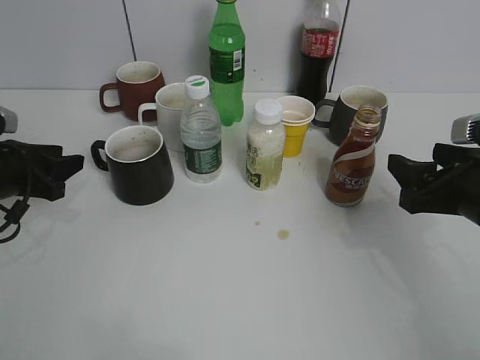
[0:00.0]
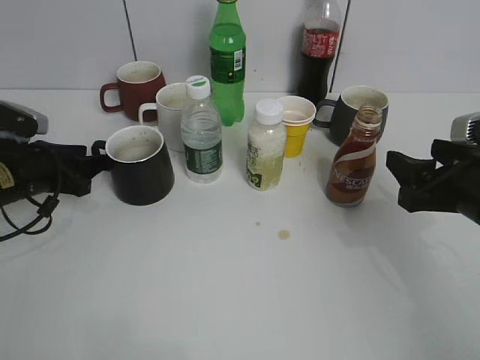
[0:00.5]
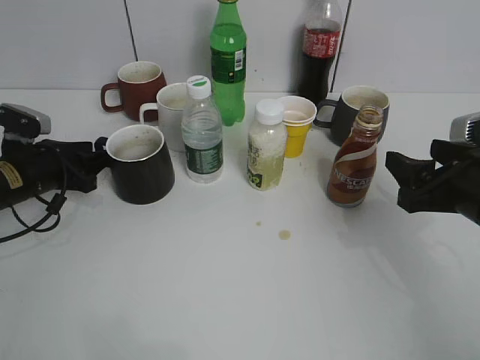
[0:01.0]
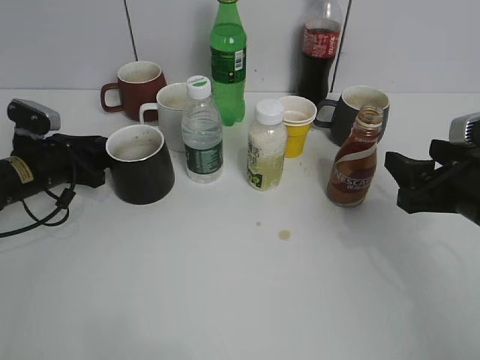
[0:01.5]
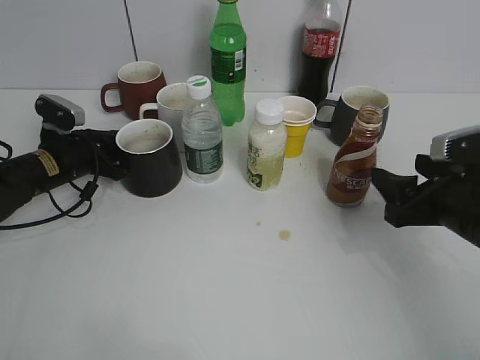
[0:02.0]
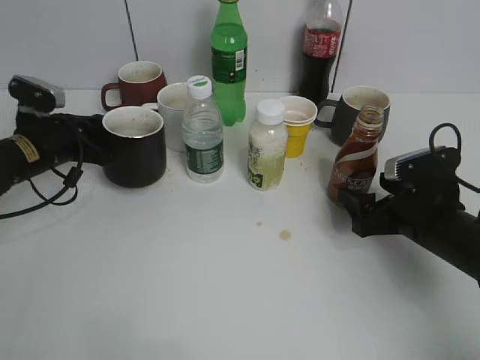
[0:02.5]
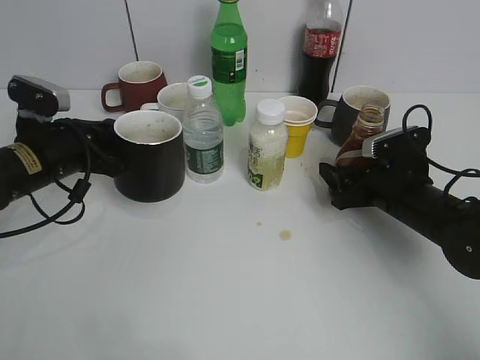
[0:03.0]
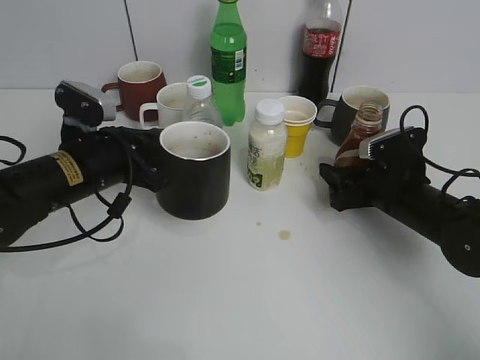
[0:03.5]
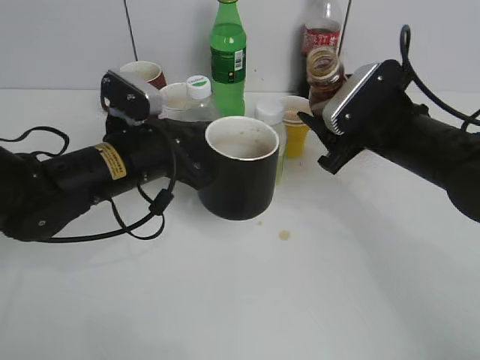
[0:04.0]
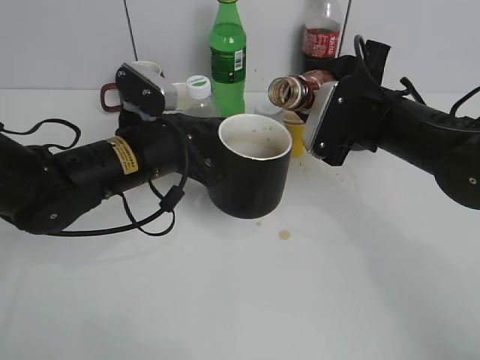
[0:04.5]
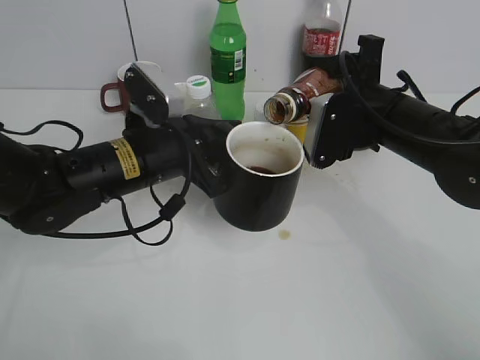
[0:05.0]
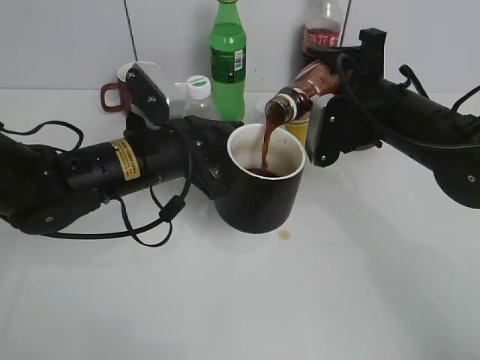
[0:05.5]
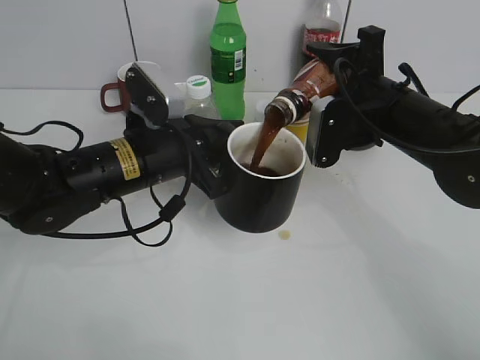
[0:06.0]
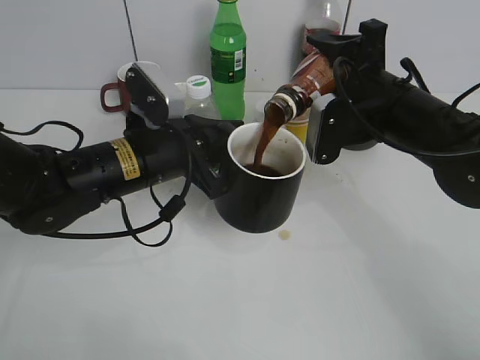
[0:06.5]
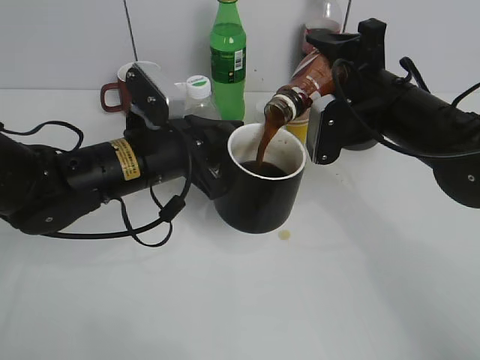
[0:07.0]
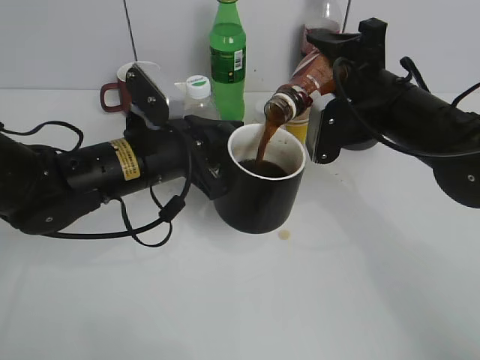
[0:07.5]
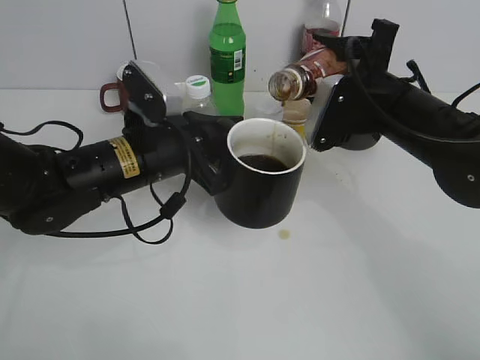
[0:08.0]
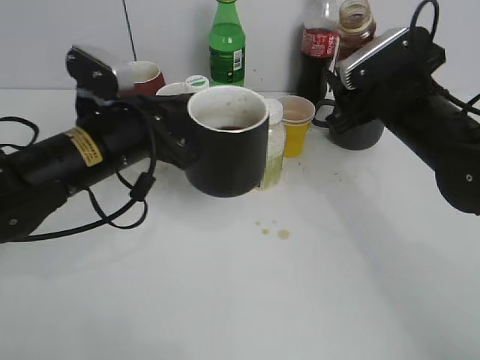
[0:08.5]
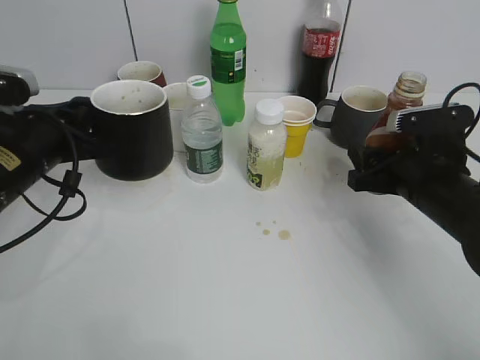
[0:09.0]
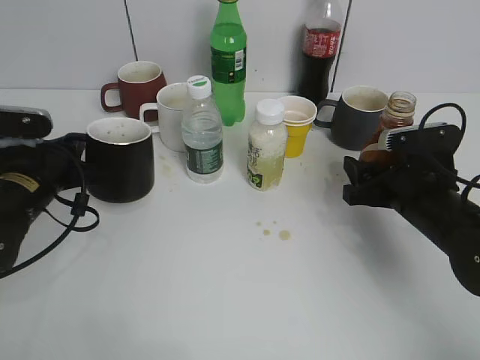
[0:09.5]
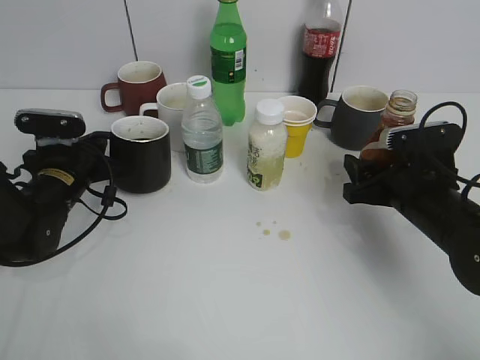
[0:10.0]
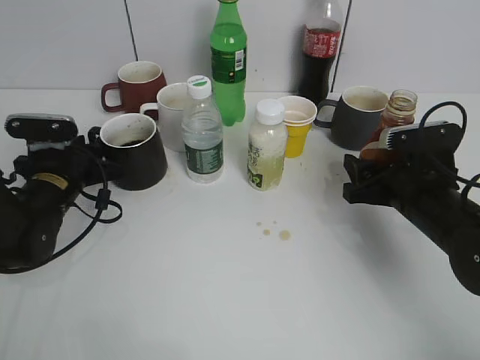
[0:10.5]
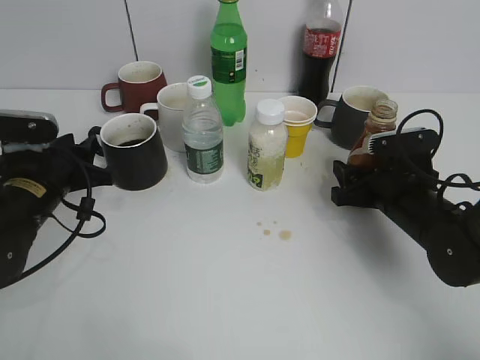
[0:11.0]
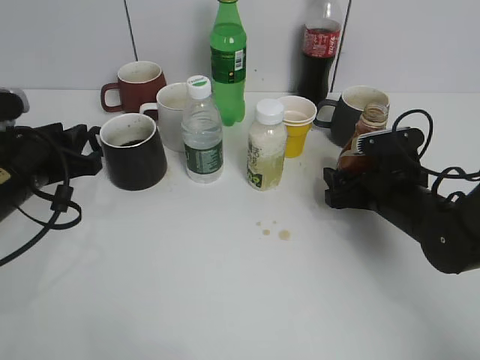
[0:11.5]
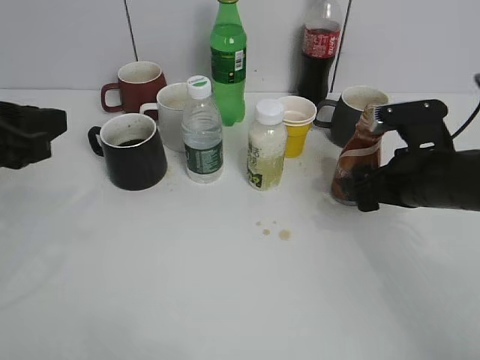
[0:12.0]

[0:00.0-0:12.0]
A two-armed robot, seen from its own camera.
Step, 0:02.5 to 0:03.0: Lift the black cup with left gripper.
Step, 0:03.5 to 0:08.0: Pour the coffee from bottle to cup with right gripper.
Step, 0:08.5 to 0:11.5: Place the coffee bottle on the table with right gripper.
0:00.0 to 0:02.0: The left gripper goes about 10 cm forward, and closes up.
0:02.0 to 0:04.0: The right gripper shifts some 10 cm forward and to the left, moves roughly 5 cm downward and comes back, and closes up, while the left gripper heads to the right, backward and upward, covering some 20 cm.
0:06.0 to 0:08.0: The grippers stay close to where they were, moving slightly.
0:08.0 to 0:10.0: The right gripper moves downward and to the right, about 10 cm, while the left gripper is displaced to the left and downward by roughly 15 cm.
0:10.0 to 0:12.0: The left gripper goes approximately 25 cm upward and backward, and opens its fingers; the right gripper opens its fingers.

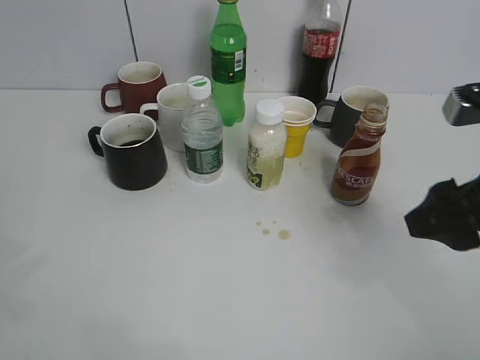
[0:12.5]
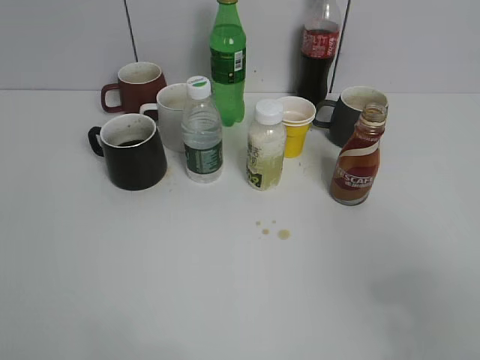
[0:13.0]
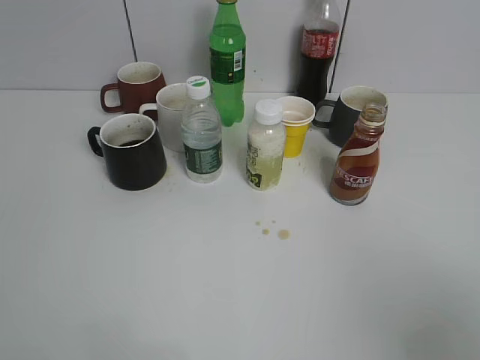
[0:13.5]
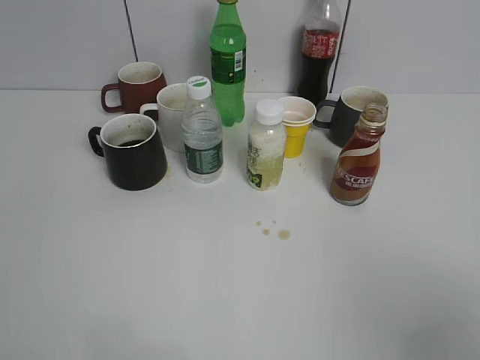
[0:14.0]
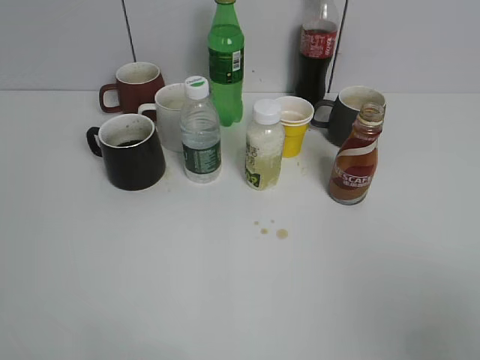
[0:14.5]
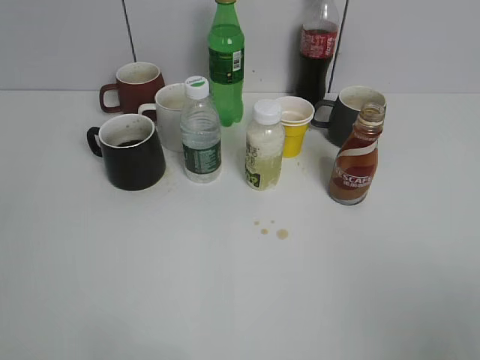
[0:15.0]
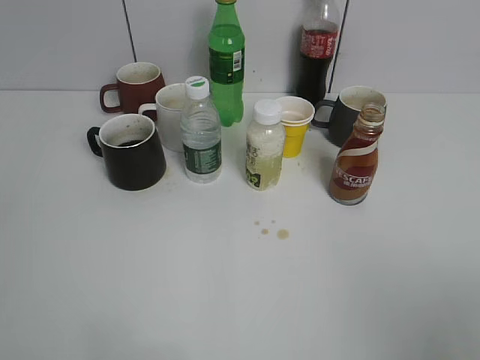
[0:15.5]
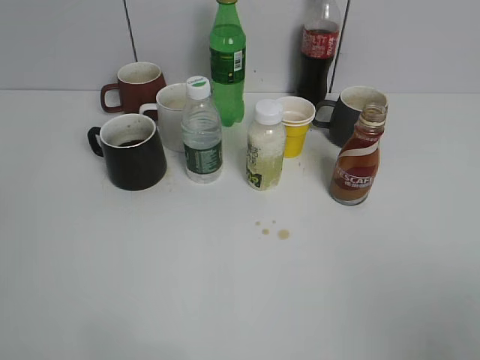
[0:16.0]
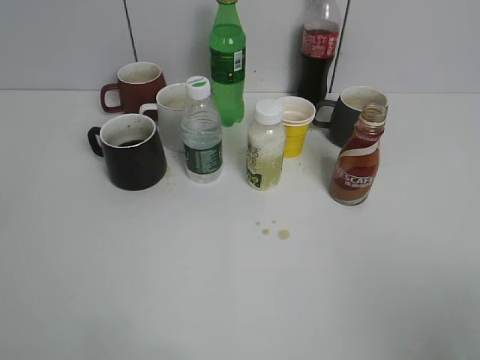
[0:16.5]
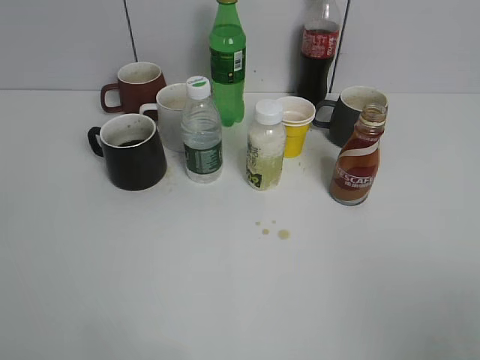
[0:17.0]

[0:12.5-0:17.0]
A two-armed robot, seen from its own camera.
0:12.5 to 0:14.5: The left gripper is displaced backward by about 10 cm. The right gripper goes approximately 20 cm backward.
0:14.5 to 0:17.0: The grippers move only a little.
